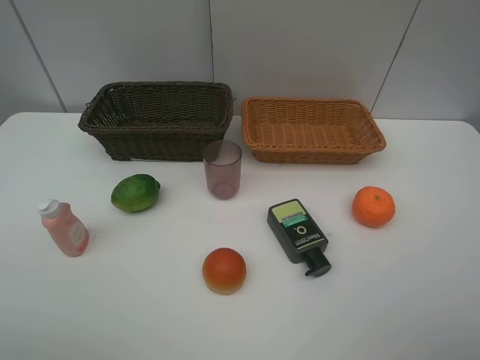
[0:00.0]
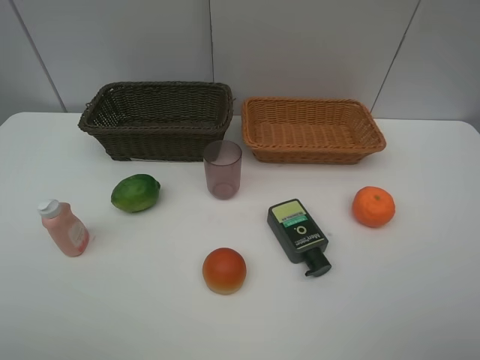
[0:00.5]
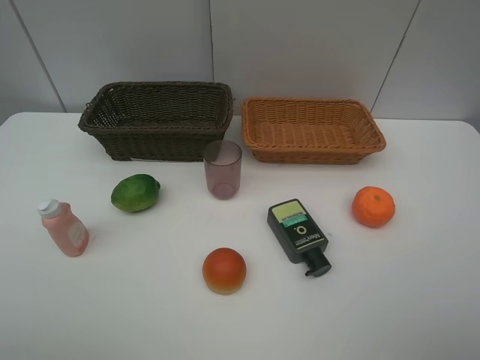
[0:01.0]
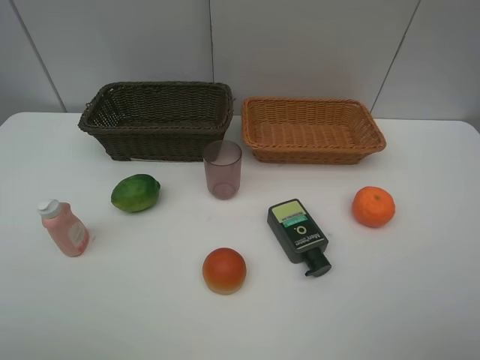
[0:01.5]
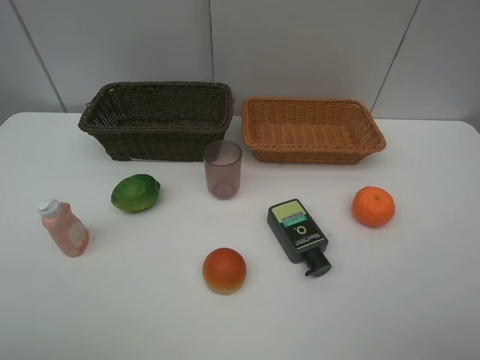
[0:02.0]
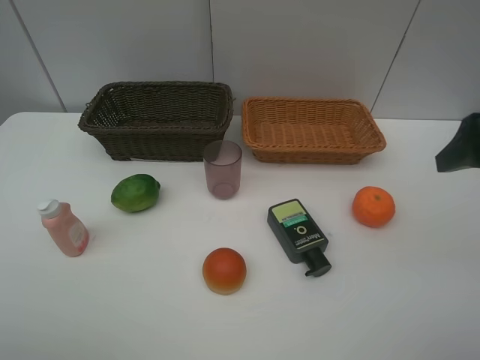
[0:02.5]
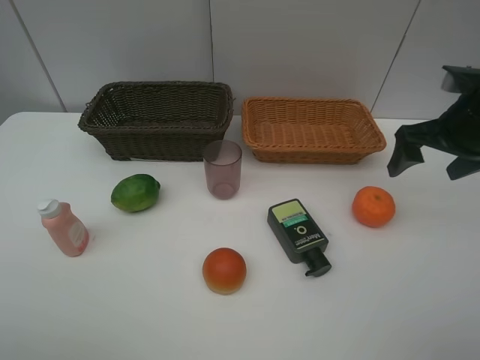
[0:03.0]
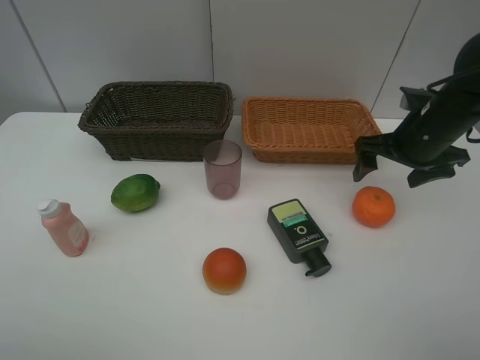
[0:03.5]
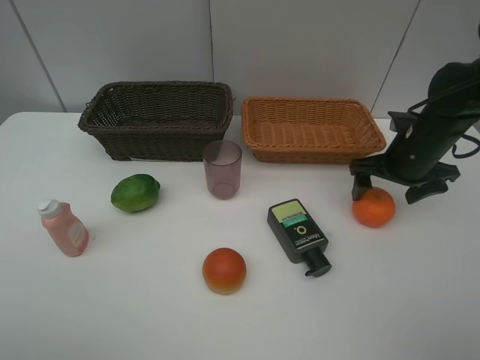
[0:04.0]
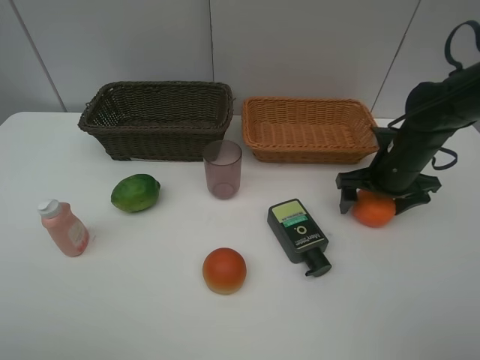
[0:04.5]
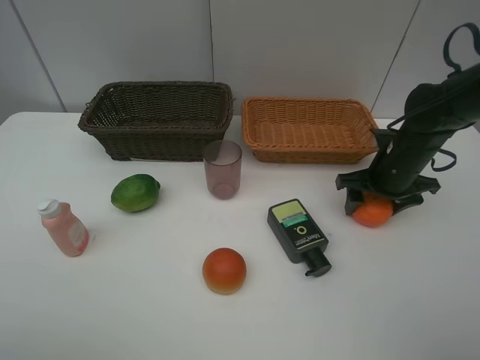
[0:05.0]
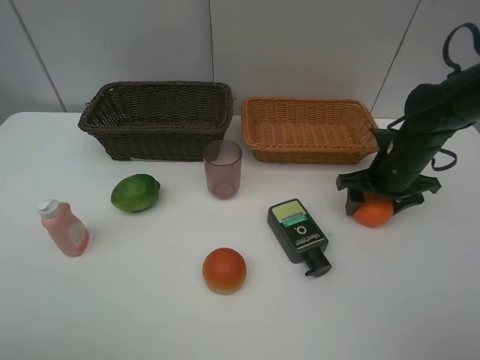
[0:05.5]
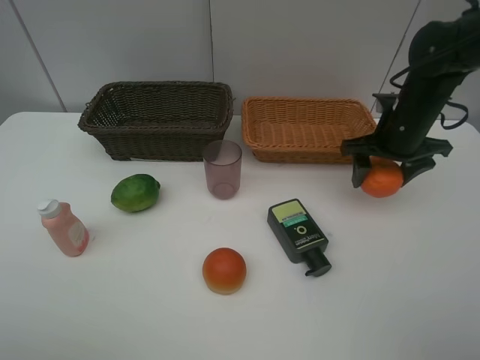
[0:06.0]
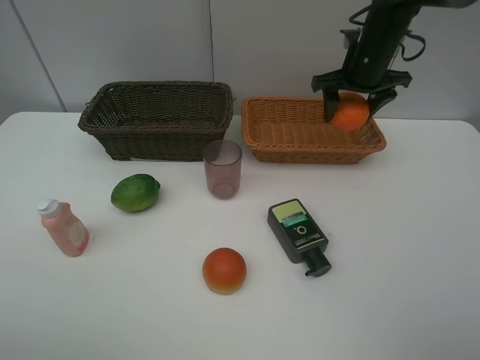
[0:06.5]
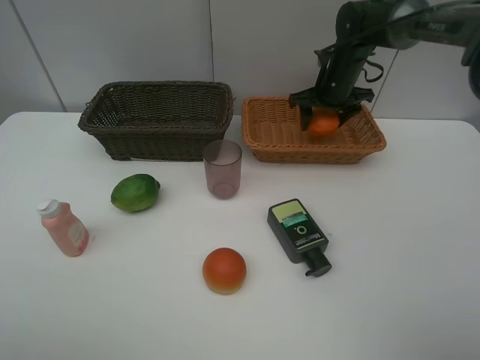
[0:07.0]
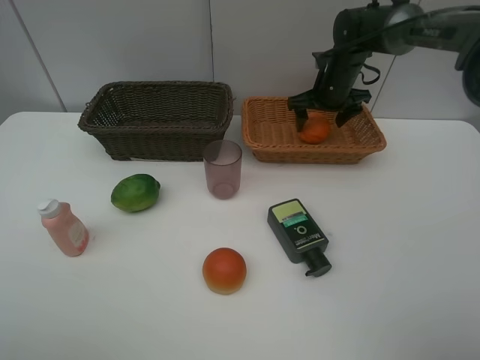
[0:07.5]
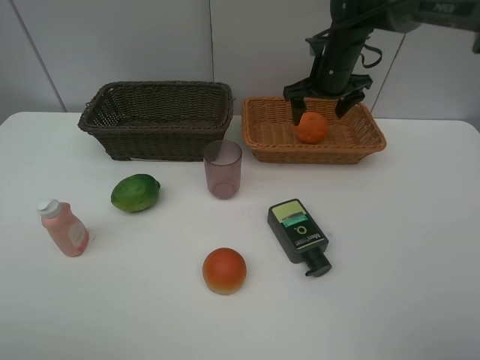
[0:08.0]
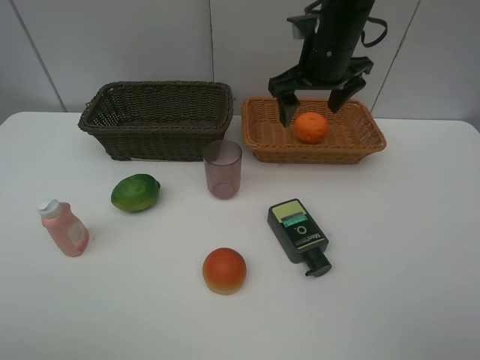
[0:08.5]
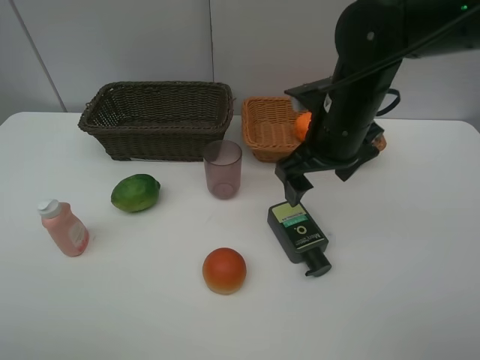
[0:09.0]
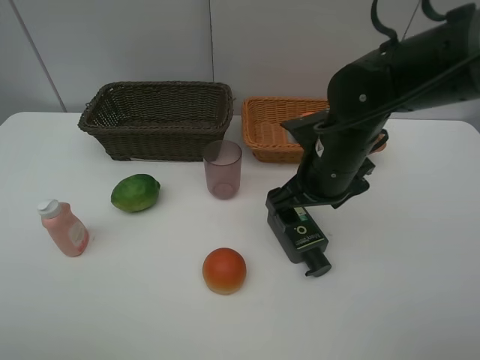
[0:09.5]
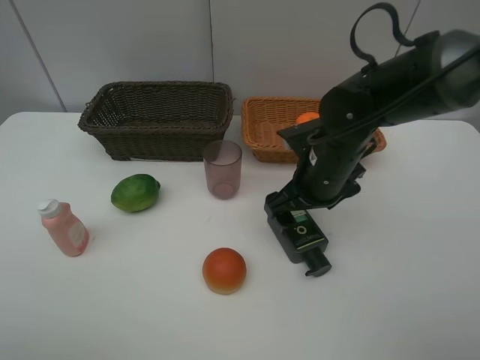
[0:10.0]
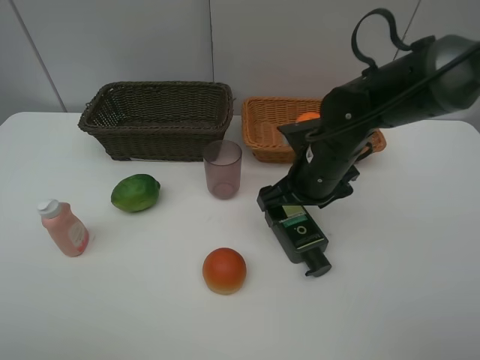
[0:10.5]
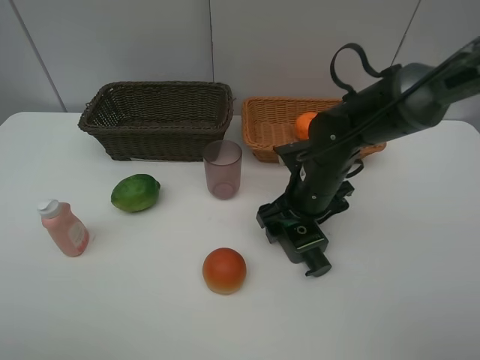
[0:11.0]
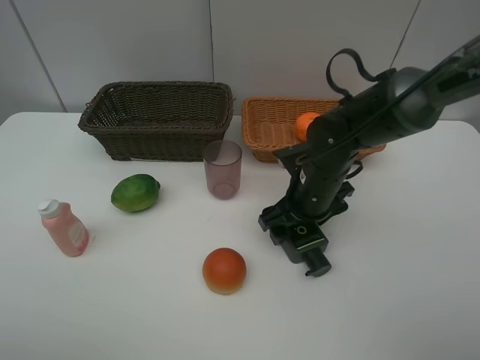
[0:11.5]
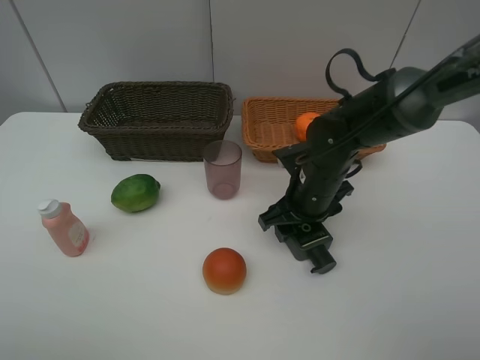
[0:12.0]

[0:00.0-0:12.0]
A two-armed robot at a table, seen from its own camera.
Task of the whole recording: place multiple objects separately in different baskets.
0:02.0 to 0:04.0: The right gripper goes some 35 cm forward and downward.
0:04.0 to 0:06.0: The right gripper moves roughly 5 cm, and closes up.
0:06.0 to 0:08.0: The right gripper is displaced forward and to the left by some 15 cm, and opens.
0:08.0 to 0:10.0: The right gripper moves backward, approximately 20 cm.
0:10.0 to 0:12.0: The right gripper closes.

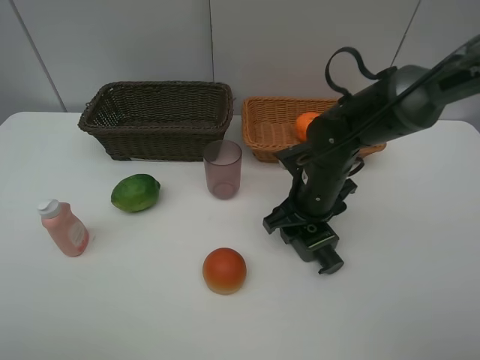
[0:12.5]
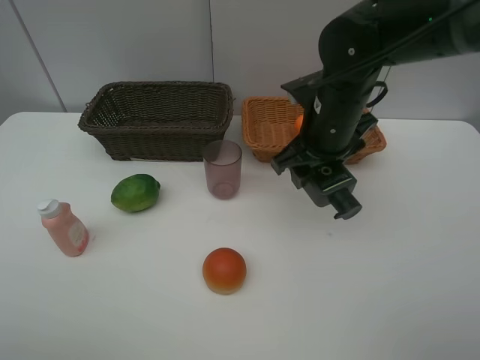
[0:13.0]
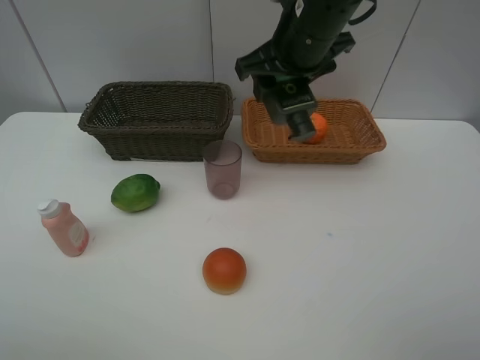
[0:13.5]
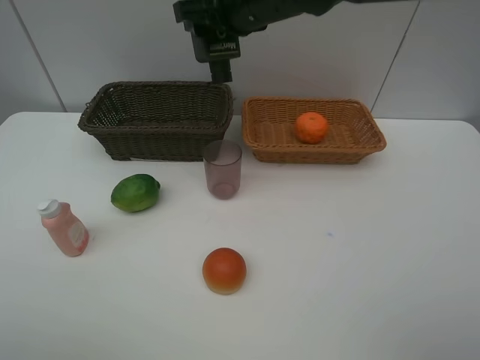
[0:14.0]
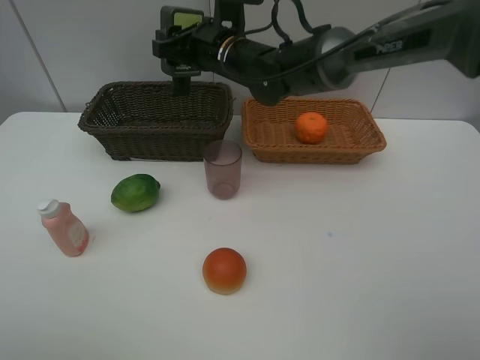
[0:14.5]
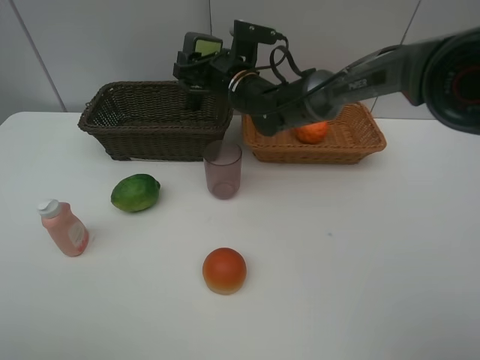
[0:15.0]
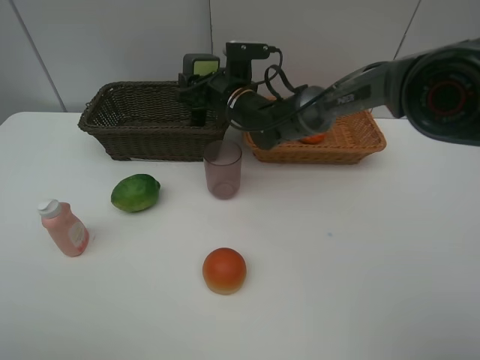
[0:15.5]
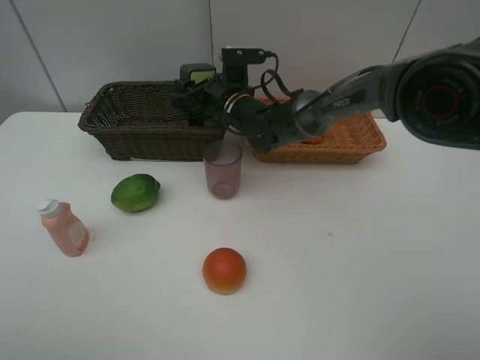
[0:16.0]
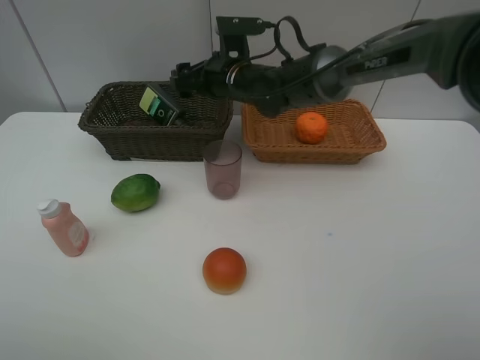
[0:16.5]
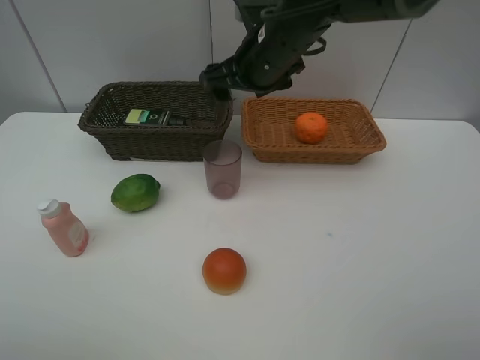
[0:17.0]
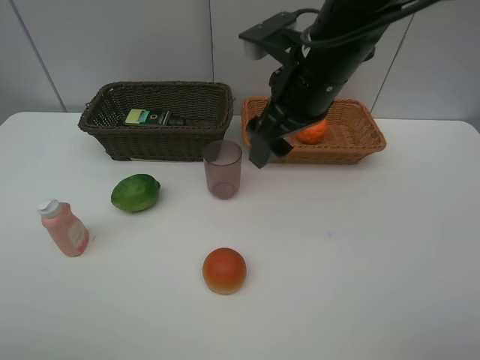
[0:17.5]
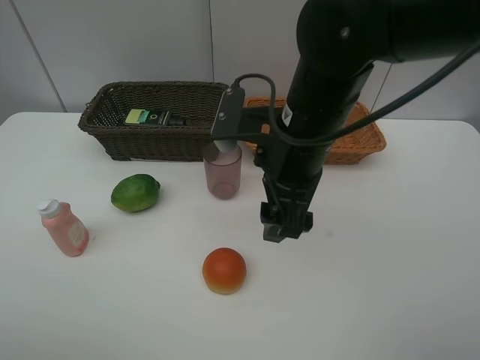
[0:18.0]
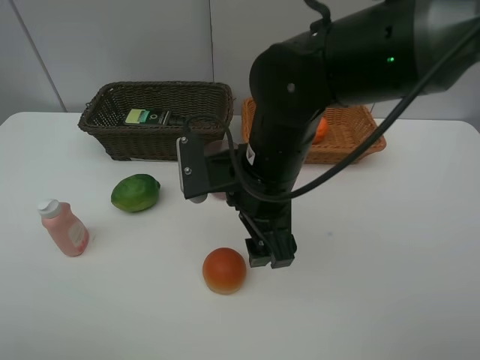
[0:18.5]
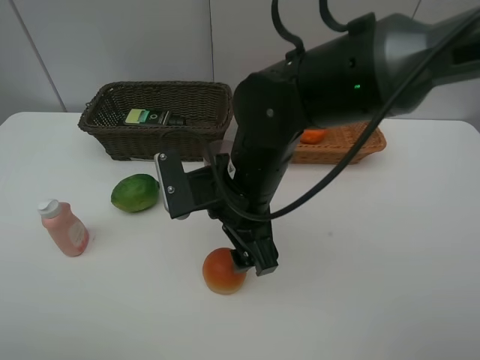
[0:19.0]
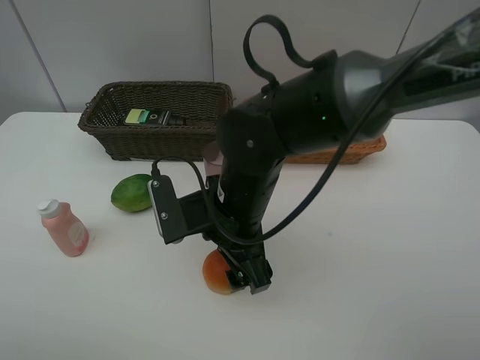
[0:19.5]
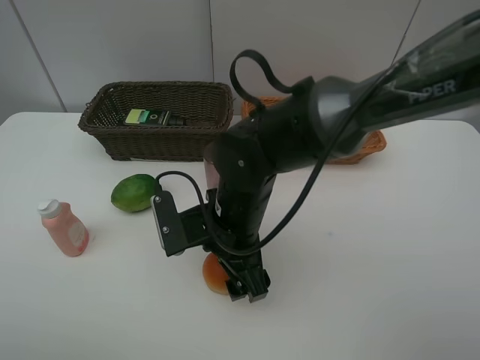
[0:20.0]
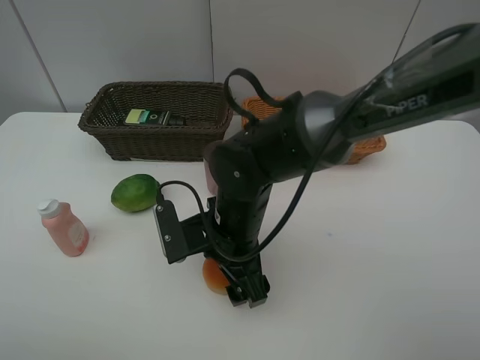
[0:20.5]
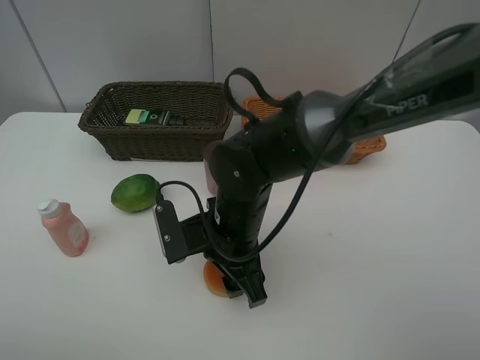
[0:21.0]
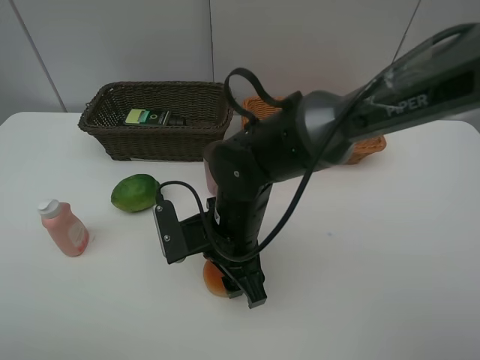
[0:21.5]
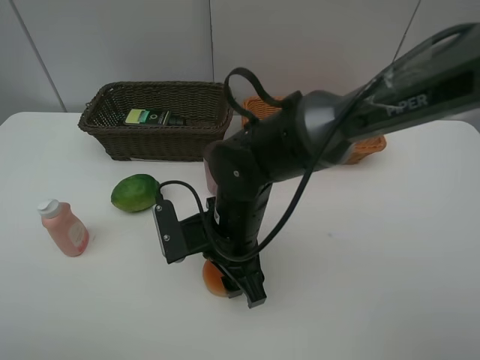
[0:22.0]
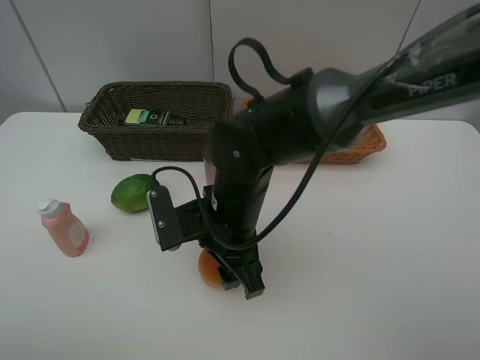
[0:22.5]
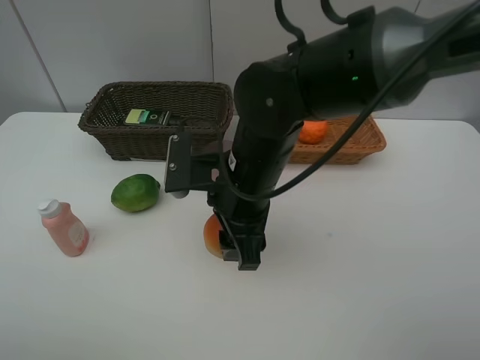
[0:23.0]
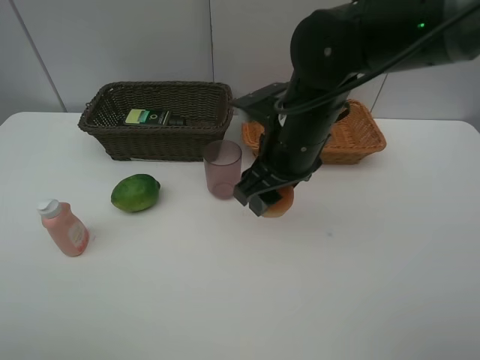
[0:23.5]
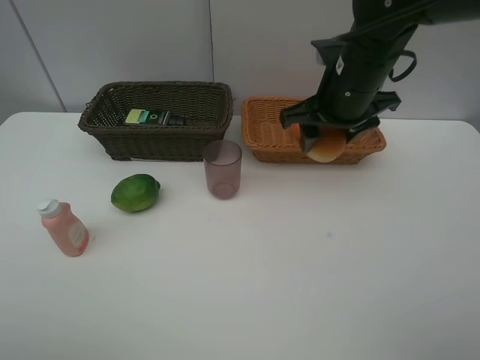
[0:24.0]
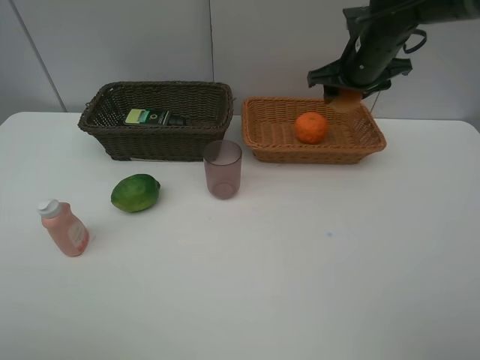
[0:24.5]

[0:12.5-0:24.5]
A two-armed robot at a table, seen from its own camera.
Task of the whole recording: place multiple objects separately in different baskets.
0:12.5 to 0:14.5: The right gripper shifts about 20 cm to the left, forward and upward.
0:14.5 to 0:16.5: The right gripper opens up.
0:16.5 to 0:18.5: The right gripper is displaced backward by about 20 cm.
0:18.5 to 0:20.5: The right gripper goes approximately 10 cm downward.
0:20.5 to 0:22.5: The right gripper closes its fingers.
0:22.5 to 0:24.5: The right gripper goes about 30 cm forward, to the right and upward.

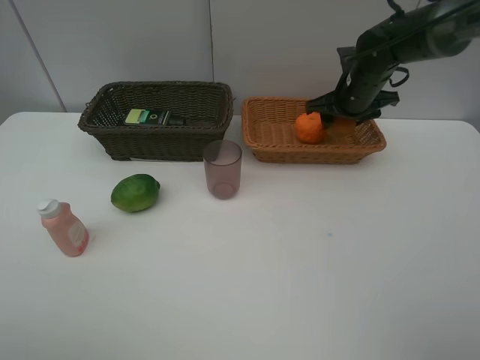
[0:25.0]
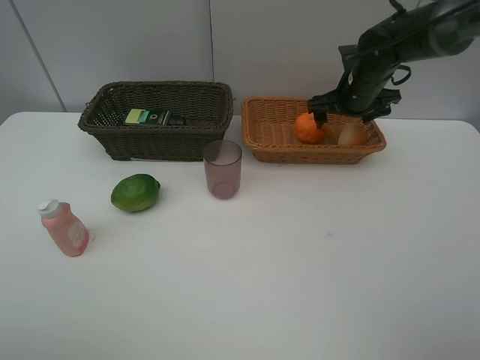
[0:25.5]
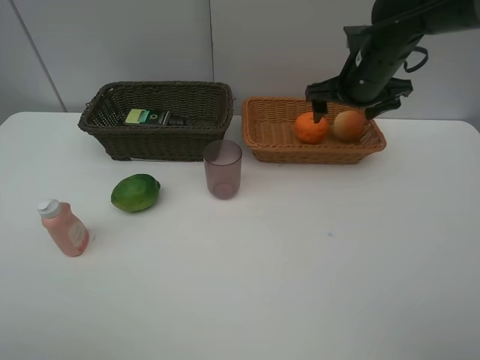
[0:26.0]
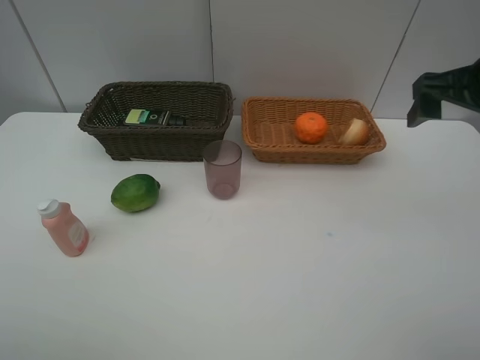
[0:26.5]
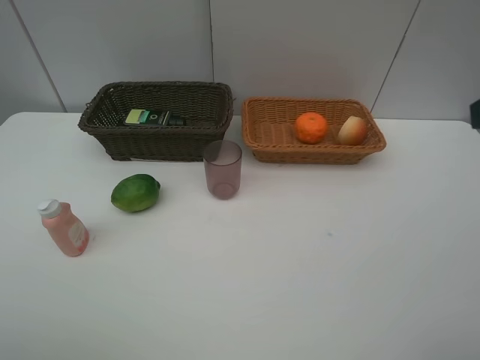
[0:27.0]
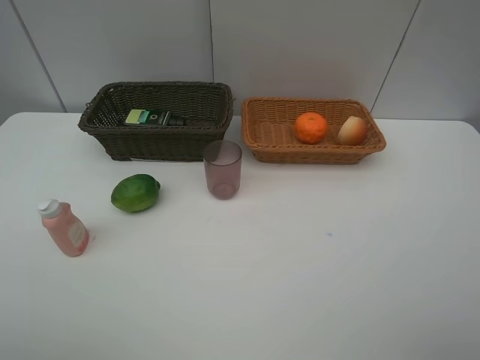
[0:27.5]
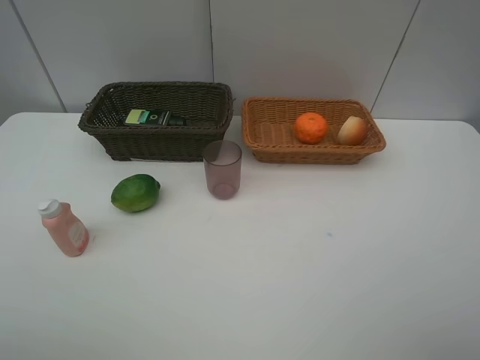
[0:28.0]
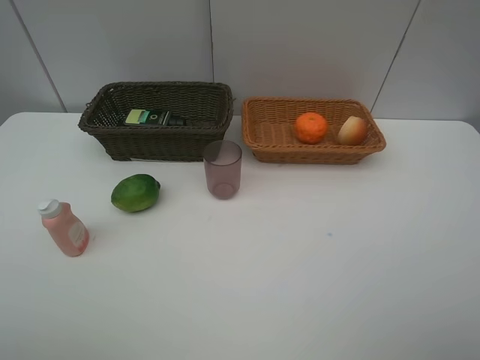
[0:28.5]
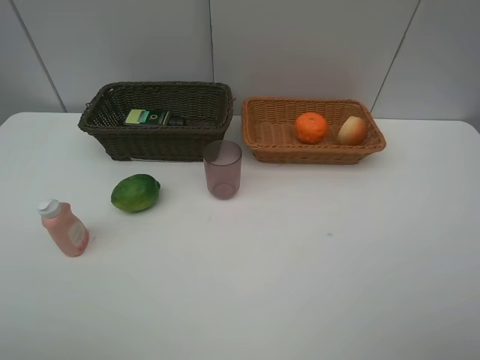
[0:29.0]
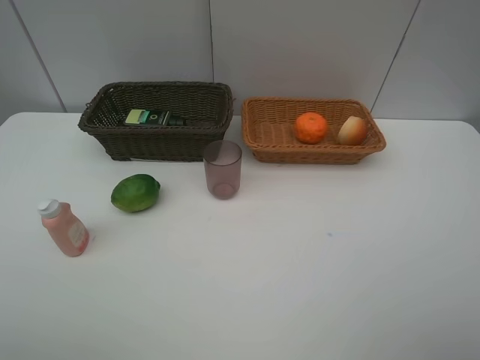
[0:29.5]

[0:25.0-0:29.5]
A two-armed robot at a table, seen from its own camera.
Task of the whole recording: place multiple objects separately in different baskets.
0:25.0 to 0:27.0: The right gripper shifts roughly 40 cm backward and upward, and opens.
